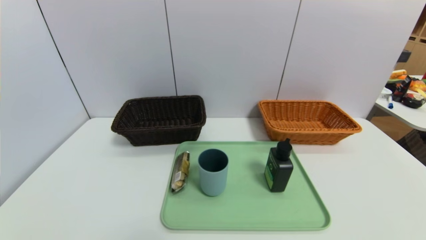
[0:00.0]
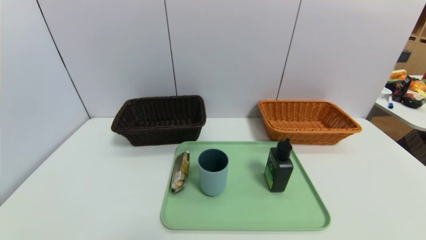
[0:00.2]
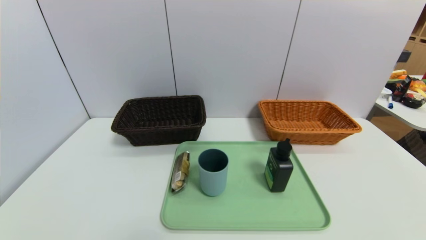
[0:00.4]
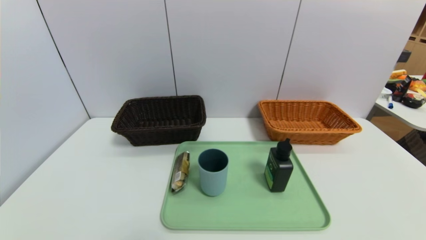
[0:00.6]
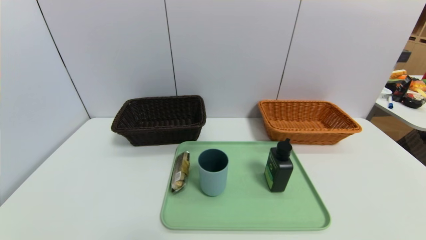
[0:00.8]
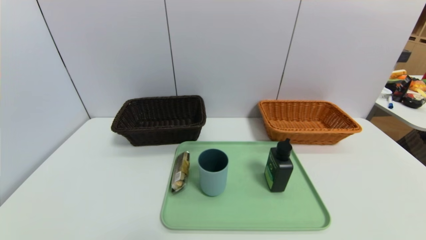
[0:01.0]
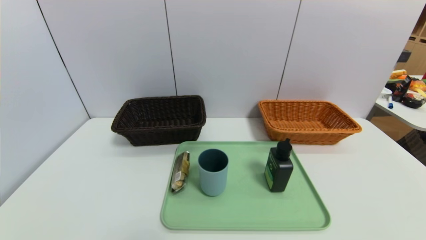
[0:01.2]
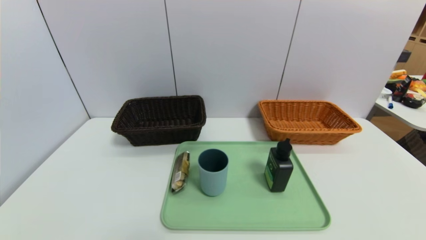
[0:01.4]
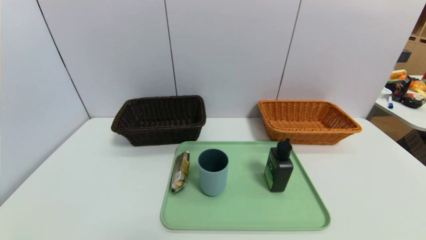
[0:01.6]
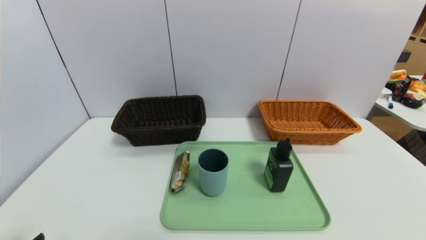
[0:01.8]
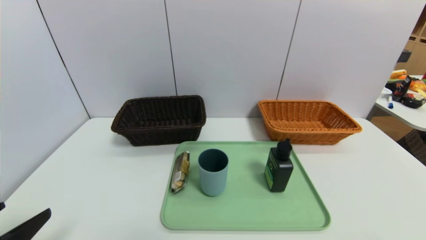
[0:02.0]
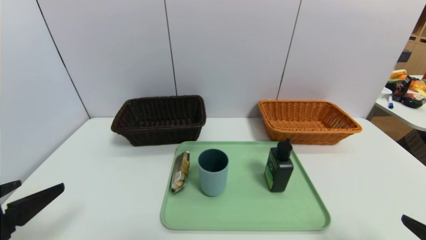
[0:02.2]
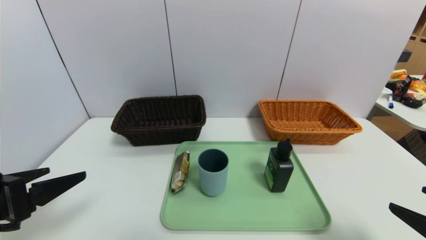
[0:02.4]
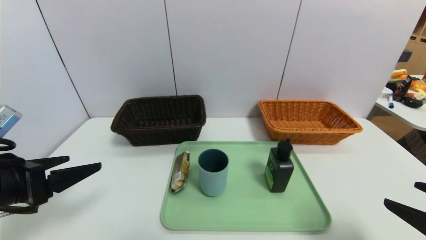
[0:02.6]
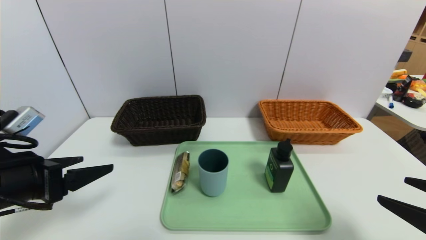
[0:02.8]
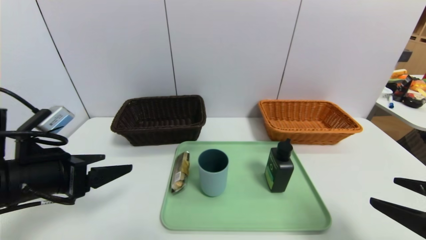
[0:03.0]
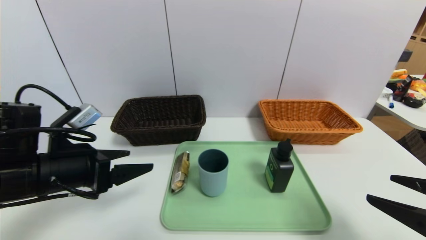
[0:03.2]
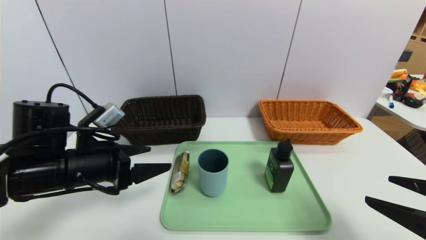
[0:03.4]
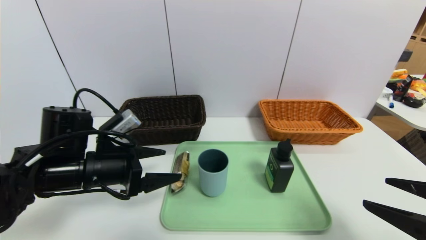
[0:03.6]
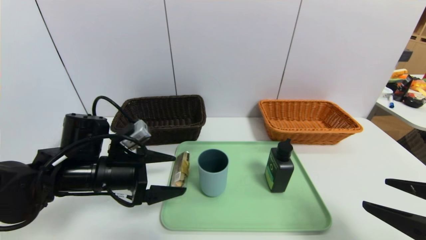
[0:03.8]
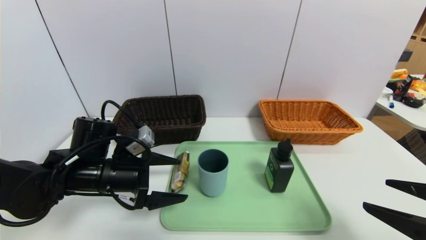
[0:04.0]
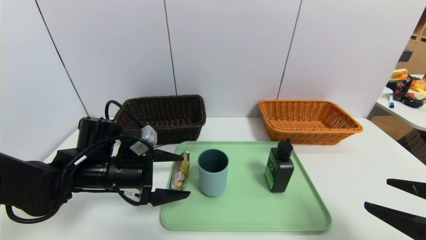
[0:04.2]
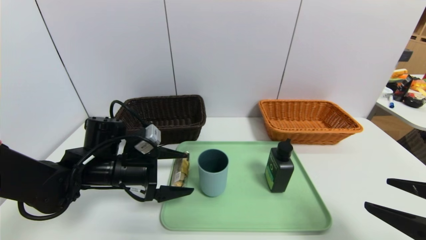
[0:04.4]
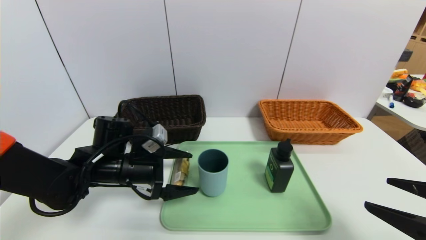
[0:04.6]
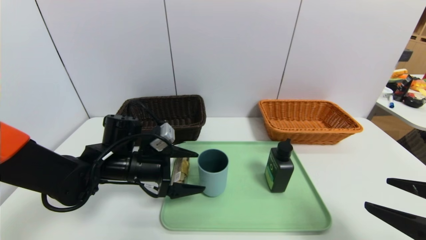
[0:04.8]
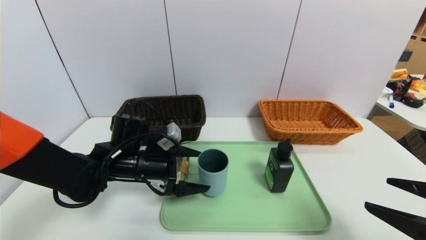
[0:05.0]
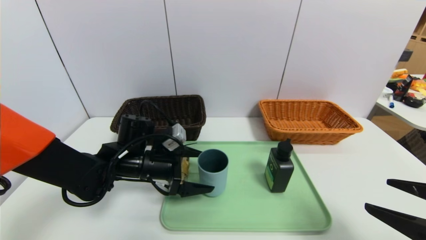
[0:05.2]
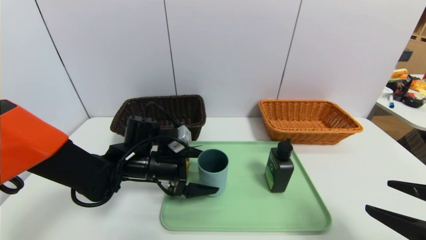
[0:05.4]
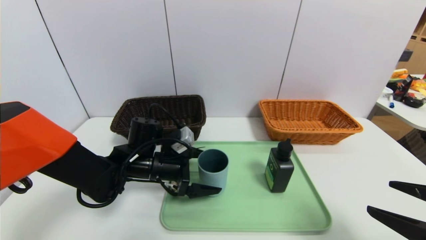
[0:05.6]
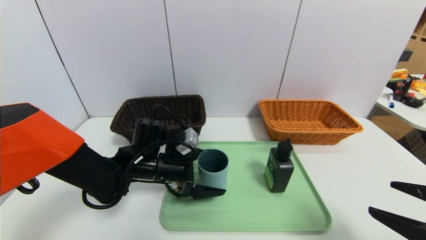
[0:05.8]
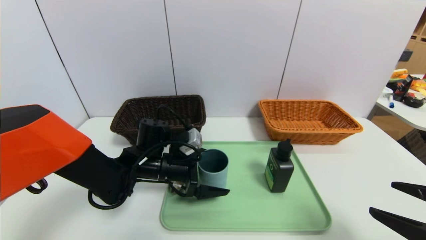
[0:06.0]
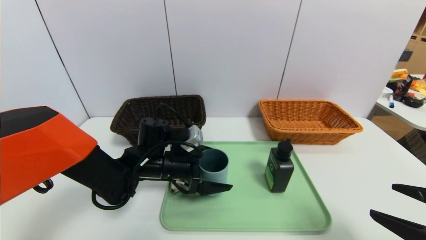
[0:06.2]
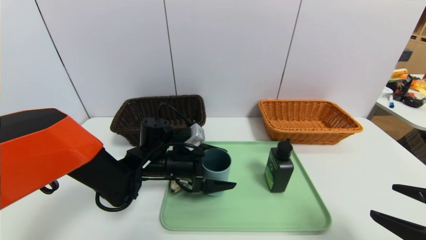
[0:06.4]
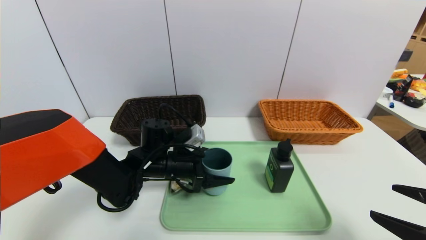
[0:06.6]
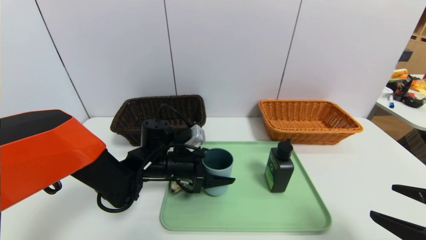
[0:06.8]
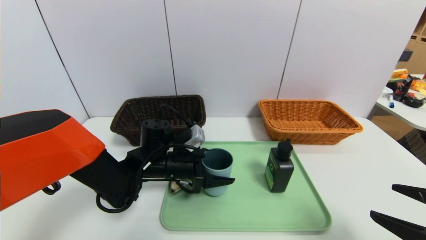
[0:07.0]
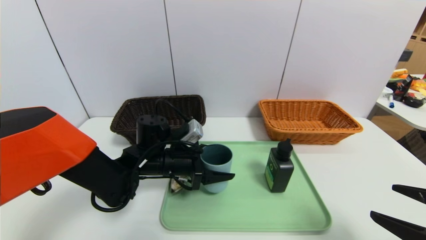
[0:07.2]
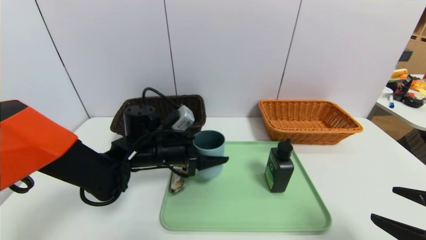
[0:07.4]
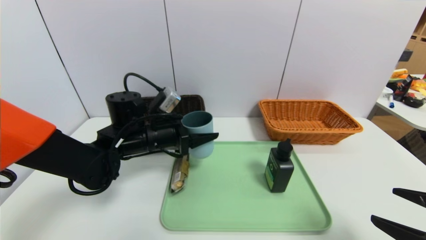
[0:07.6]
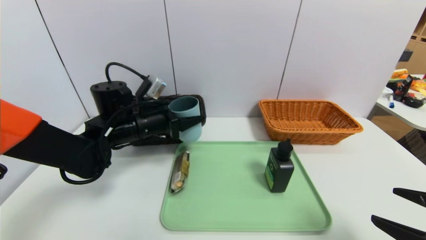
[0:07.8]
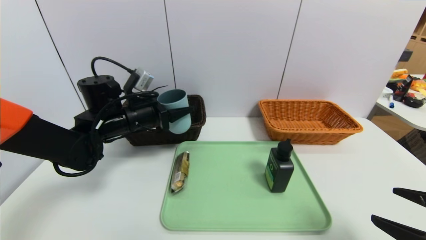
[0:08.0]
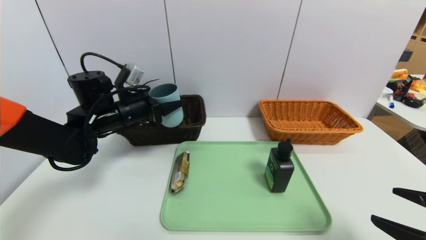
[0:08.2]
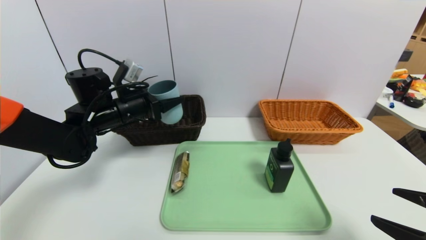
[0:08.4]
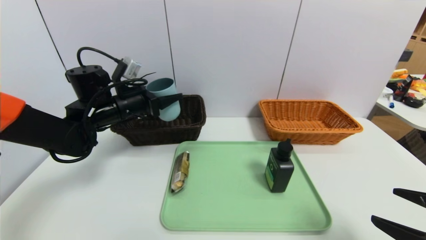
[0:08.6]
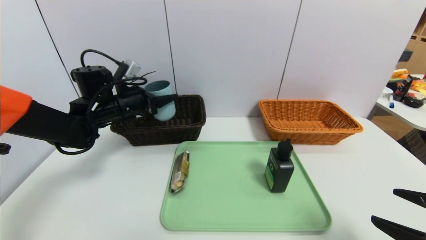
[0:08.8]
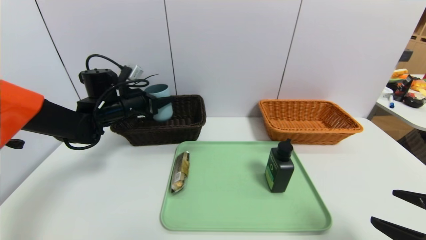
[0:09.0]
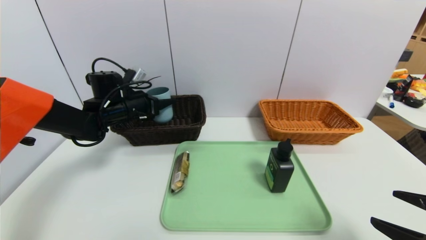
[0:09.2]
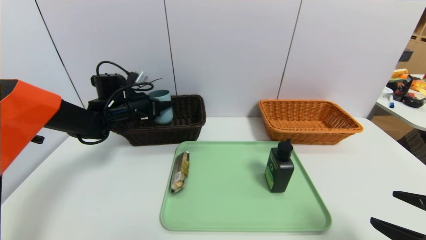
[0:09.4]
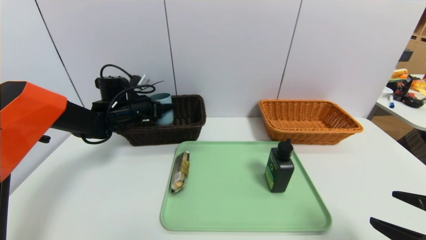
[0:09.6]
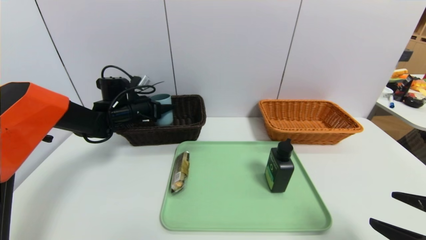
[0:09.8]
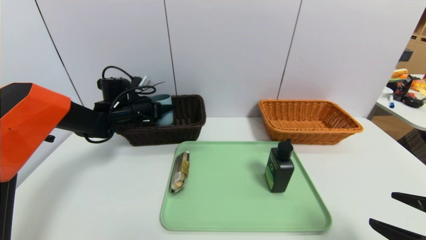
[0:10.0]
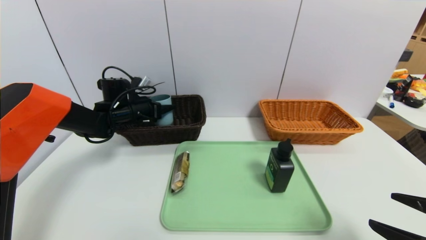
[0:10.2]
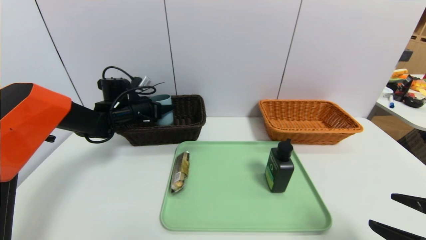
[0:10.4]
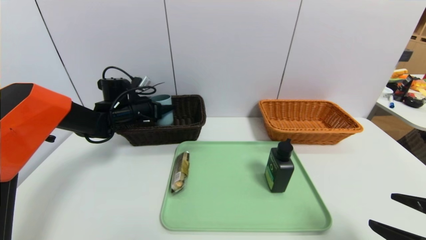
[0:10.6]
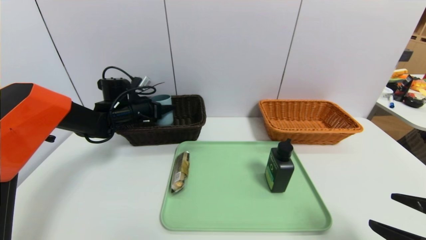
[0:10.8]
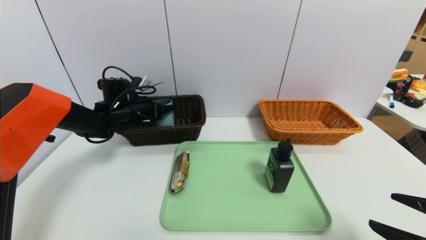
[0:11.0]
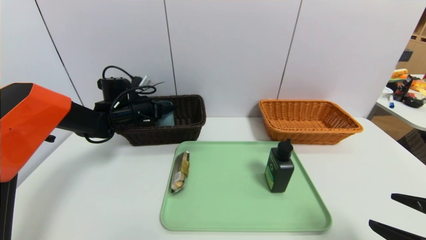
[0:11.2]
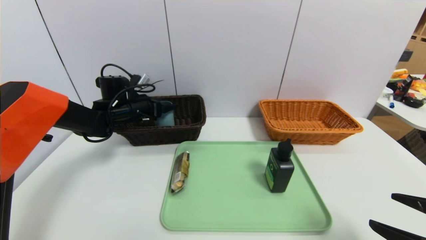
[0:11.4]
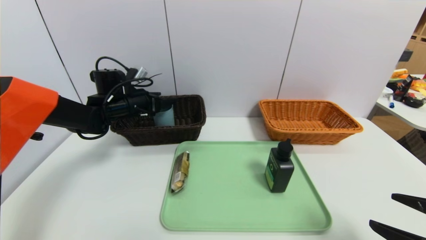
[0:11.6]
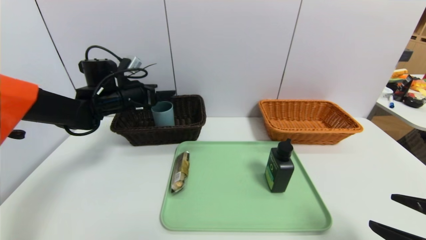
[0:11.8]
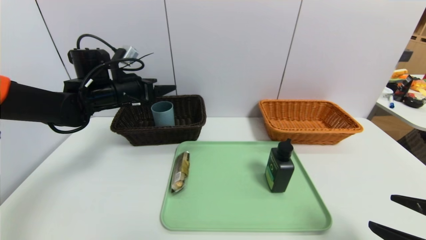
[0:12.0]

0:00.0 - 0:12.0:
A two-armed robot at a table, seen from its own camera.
Task of the whole recording: place the food in the right basket with the right gripper, and place the non food items in the left basket with the left gripper.
Step, 0:00.0 - 0:11.4: Grasp the blue cup and put it in the left basket.
0:01.6 - 0:03.0: Both grippers move forward and upward, about 15 cm.
0:03.0 - 0:04.4: The left gripper goes some 15 cm forward, downward and to the right.
0:04.4 - 0:06.0: The left gripper is displaced to the right by approximately 10 cm.
0:06.0 - 0:07.6: The left gripper travels upward by some 5 cm, and closes its fingers.
0:07.6 - 0:09.0: The left gripper goes roughly 10 cm forward and to the left.
0:09.0 - 0:10.4: The left gripper changes place by approximately 5 cm.
0:10.4 - 0:12.0: The left gripper travels upward and backward by about 10 cm, and opens its fingers.

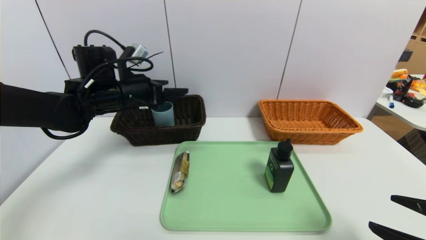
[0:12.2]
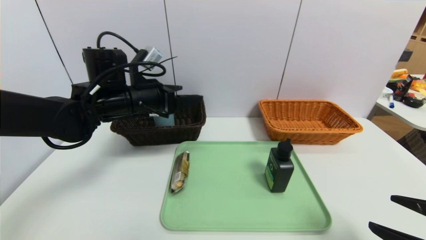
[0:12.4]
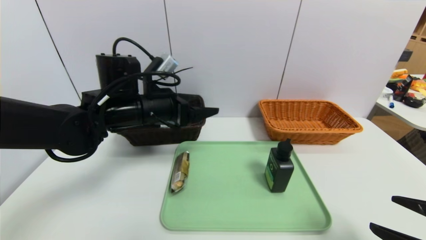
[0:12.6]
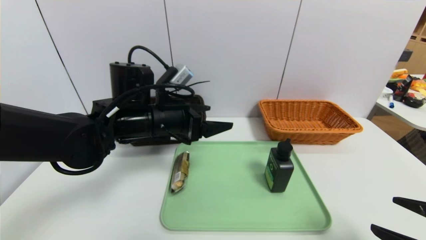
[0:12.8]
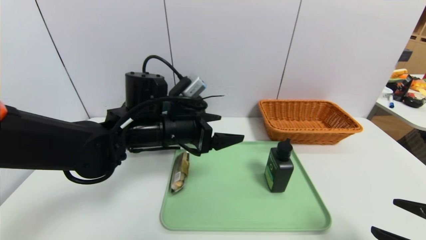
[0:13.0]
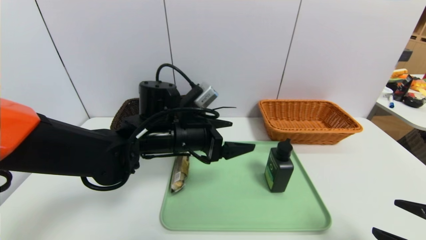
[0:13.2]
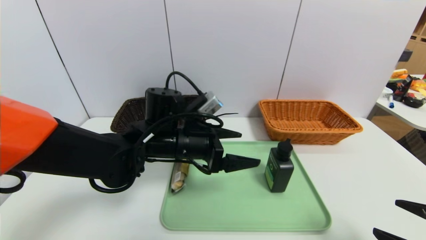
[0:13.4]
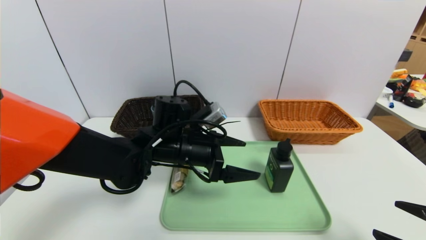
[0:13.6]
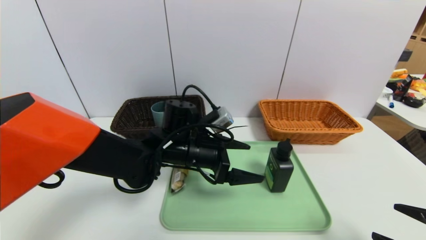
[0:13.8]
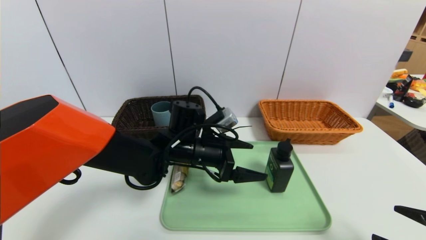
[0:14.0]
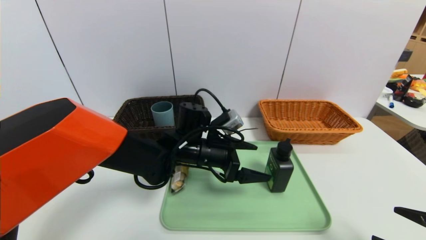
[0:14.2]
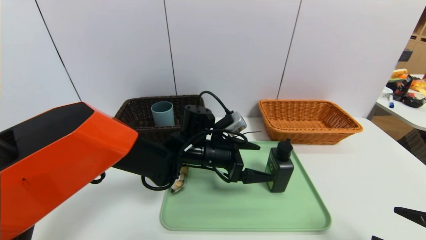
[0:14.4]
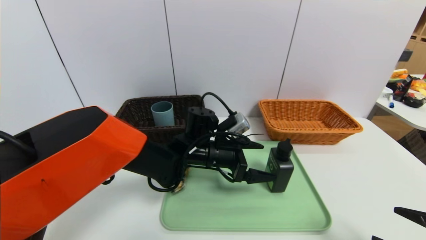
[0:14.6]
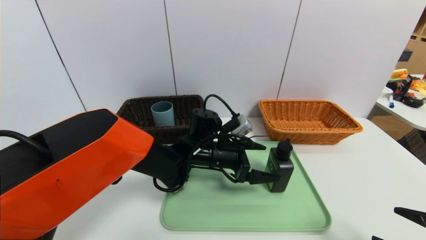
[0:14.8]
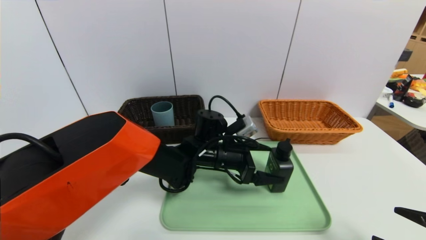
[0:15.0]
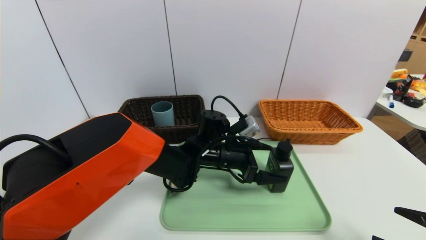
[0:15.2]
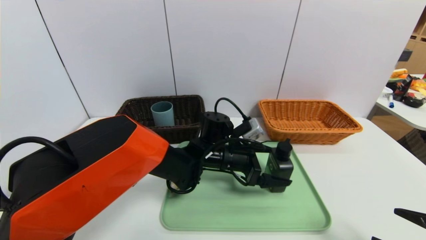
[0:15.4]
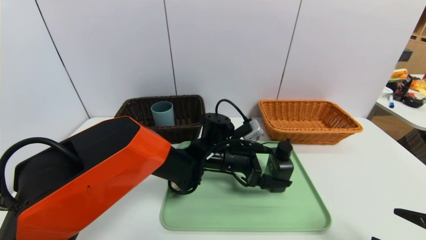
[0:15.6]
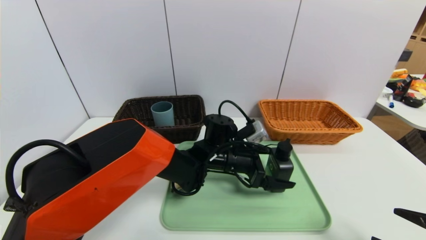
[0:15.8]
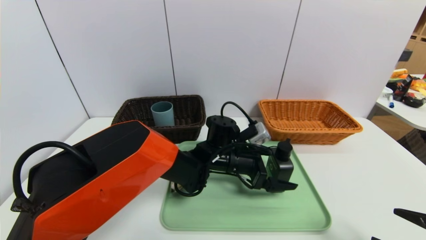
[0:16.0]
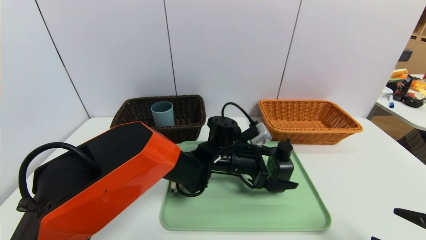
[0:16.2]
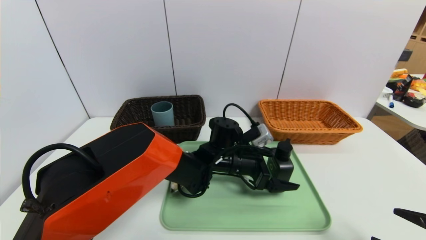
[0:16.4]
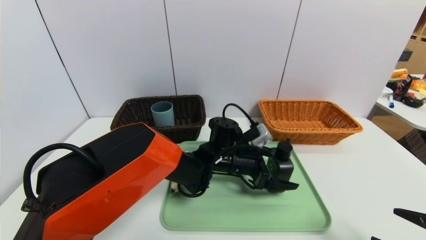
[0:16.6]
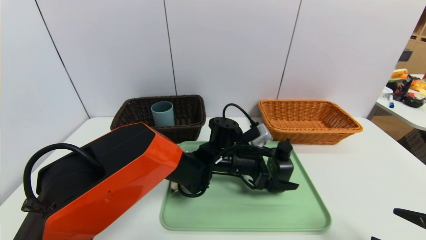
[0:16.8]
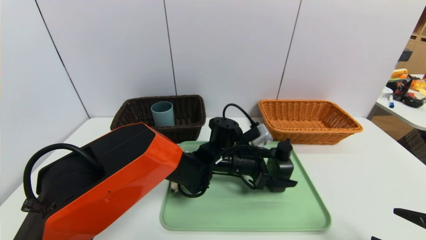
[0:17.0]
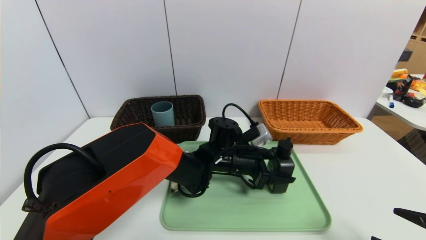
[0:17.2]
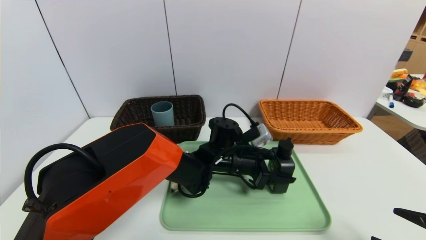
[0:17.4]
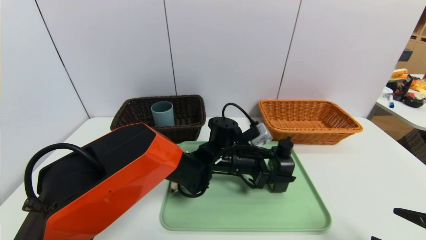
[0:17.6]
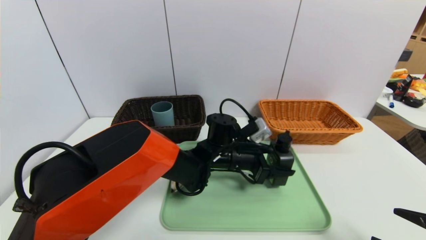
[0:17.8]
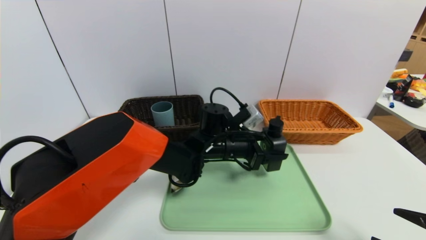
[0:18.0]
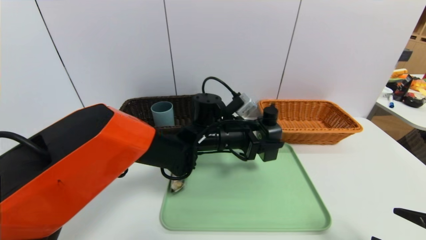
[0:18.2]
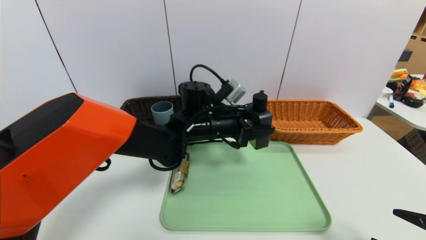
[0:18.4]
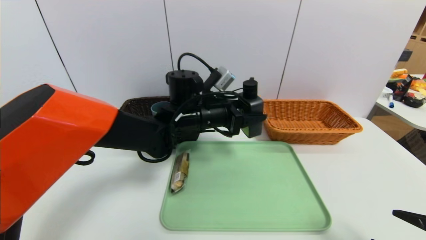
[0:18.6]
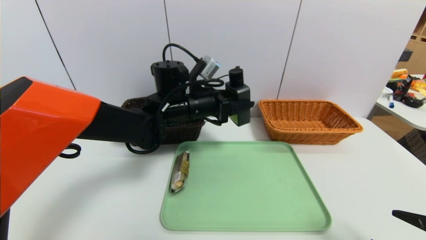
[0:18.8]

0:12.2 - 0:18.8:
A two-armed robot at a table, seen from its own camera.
Task of the whole recording: place the food in the right basket with the right gripper, and place the non food items in the left basket with the left gripper.
0:12.2 - 0:13.8: The left gripper heads to the right and downward, covering some 15 cm.
0:13.8 - 0:15.4: The left gripper travels to the right by roughly 5 cm.
0:15.4 - 0:17.2: The left gripper closes up.
0:17.2 - 0:18.8: The left gripper is displaced upward and to the left by some 15 cm.
